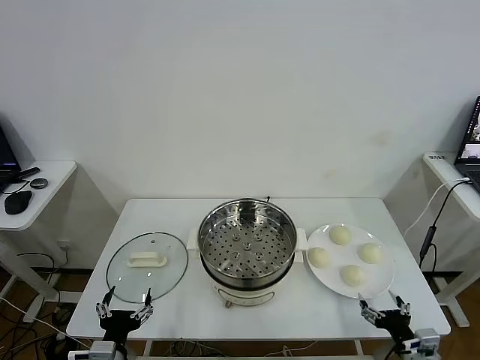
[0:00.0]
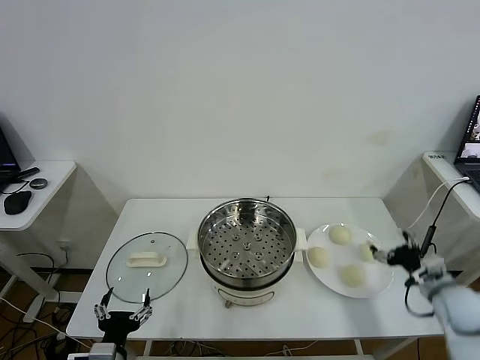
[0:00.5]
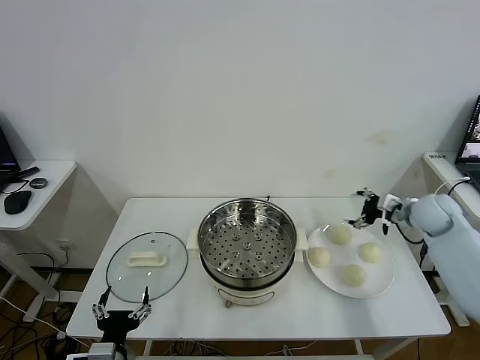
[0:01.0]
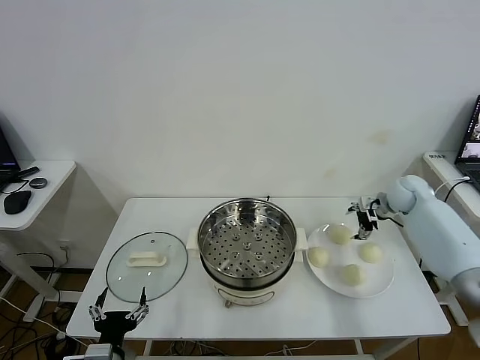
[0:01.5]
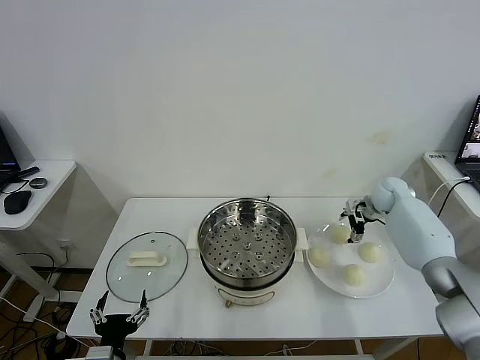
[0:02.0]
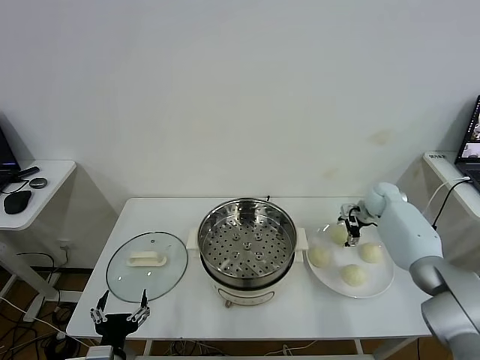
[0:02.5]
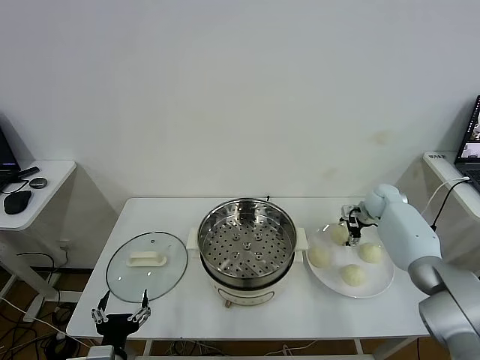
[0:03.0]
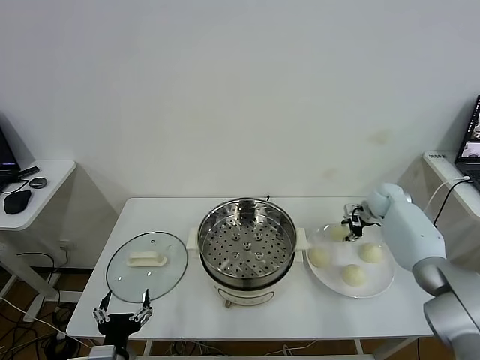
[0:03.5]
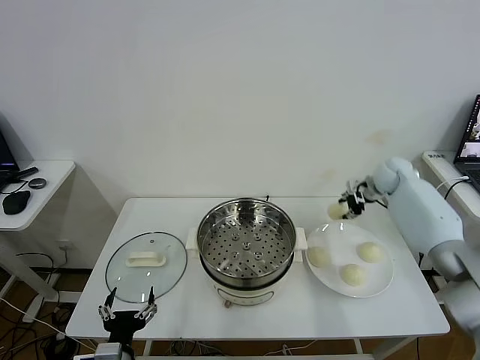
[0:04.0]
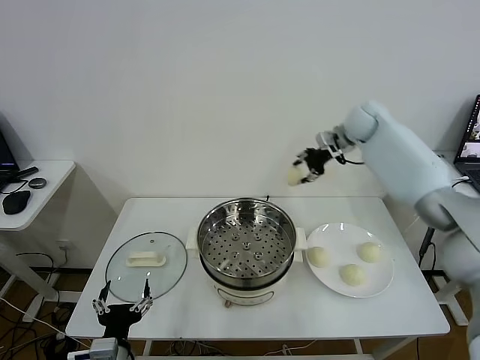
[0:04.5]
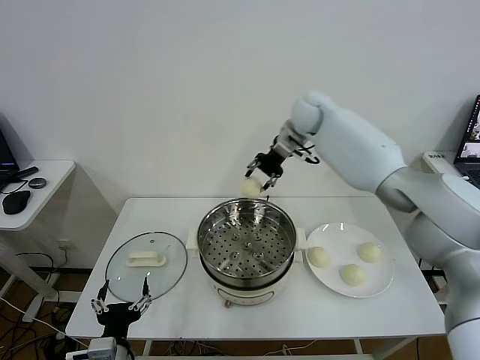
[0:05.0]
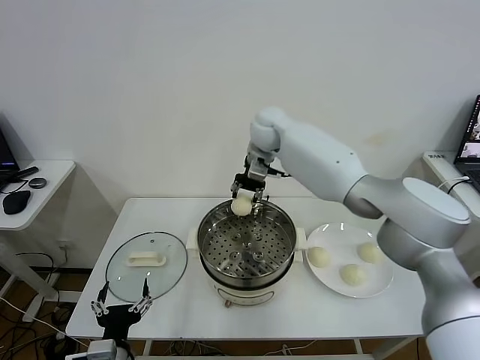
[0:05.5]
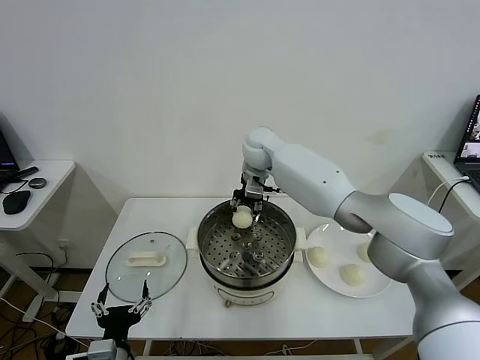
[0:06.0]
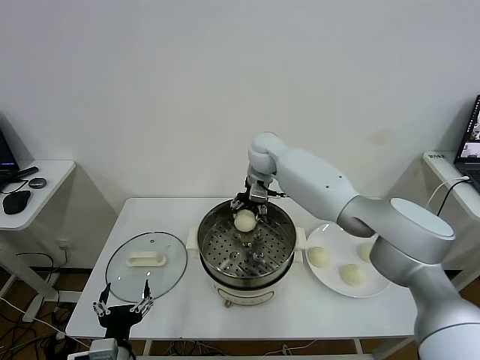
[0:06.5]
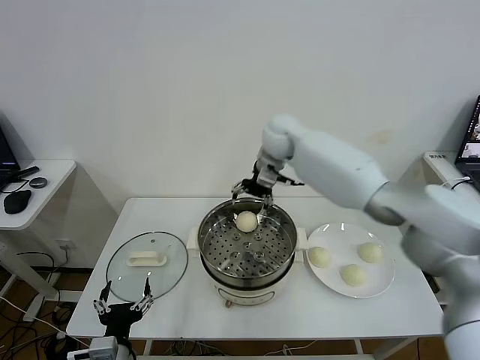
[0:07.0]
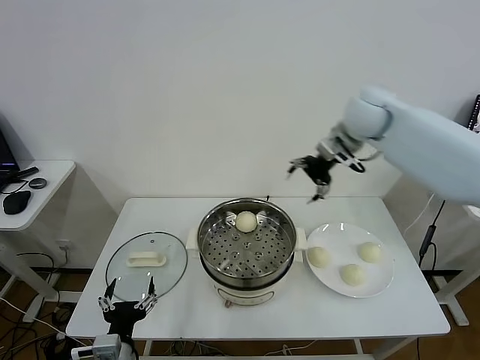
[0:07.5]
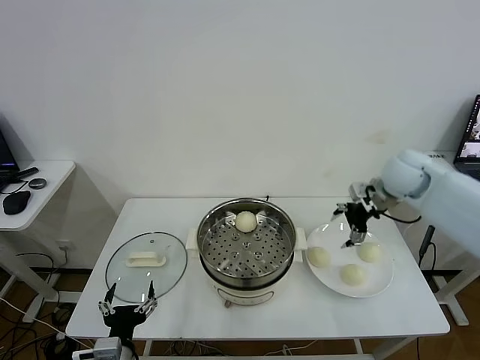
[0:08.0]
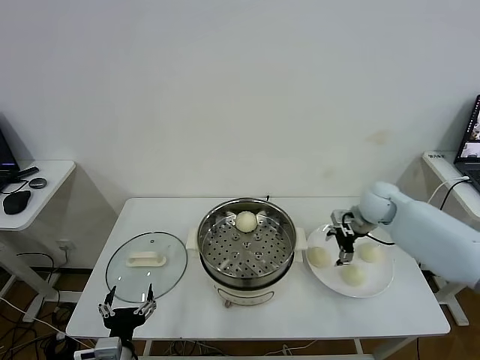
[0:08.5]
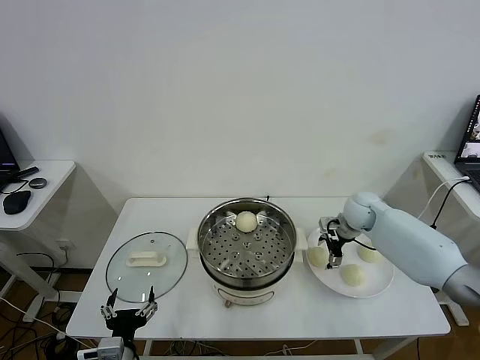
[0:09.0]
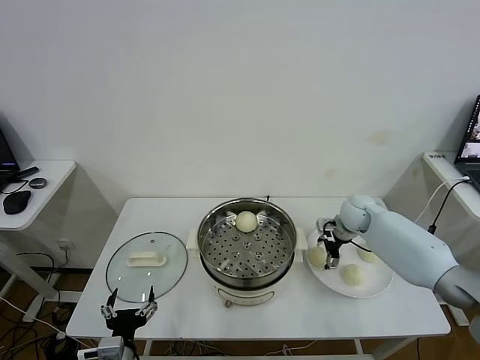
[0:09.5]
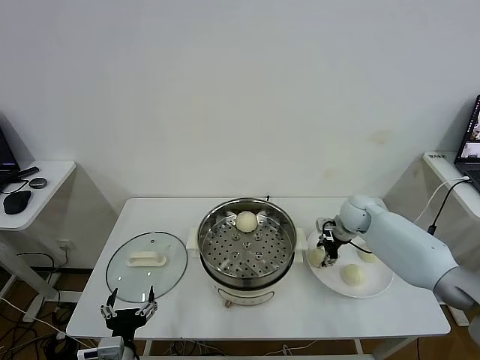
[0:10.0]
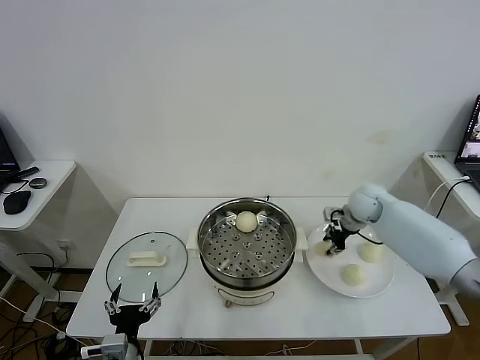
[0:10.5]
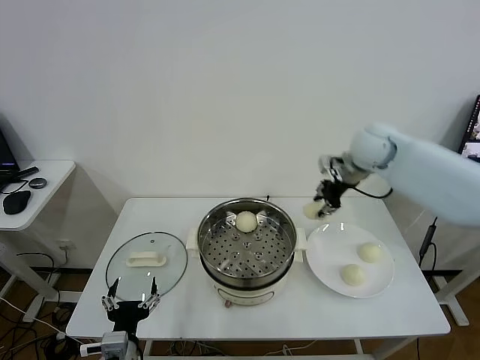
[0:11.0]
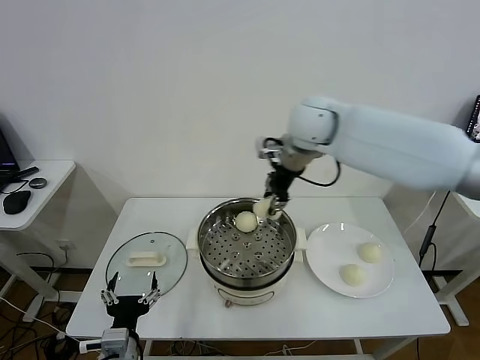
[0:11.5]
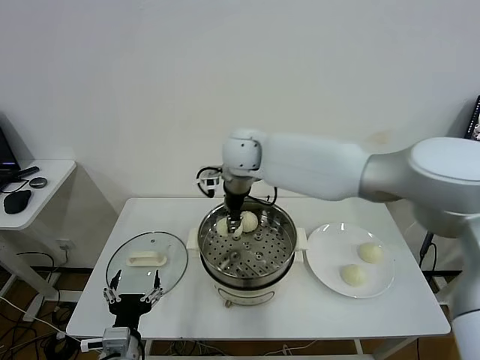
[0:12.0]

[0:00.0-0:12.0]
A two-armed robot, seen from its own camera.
Task of the whole recording: take steamed baozi put them in steamer.
Step, 0.0 to 3.0 s: Grasp the baozi in the plate with right gripper.
Step, 3.5 to 6.5 s: Place the baozi on the steamer with right gripper.
Step, 7.0 to 10.0 s: Grasp the baozi in the plate with right gripper.
2.0 to 4.0 s: The right gripper moves upward, approximately 5 cm, and closes.
4.0 to 6.0 s: The right gripper goes roughly 35 cm to the left.
6.0 to 8.0 s: The right gripper moves to the right, some 30 cm, and opens its fingers.
8.0 to 10.0 s: The right gripper travels downward by roughly 15 cm, and closes up.
10.0 to 12.0 s: The right gripper is displaced to the left and upward by some 35 cm.

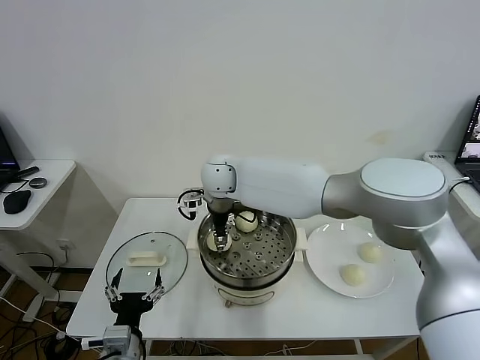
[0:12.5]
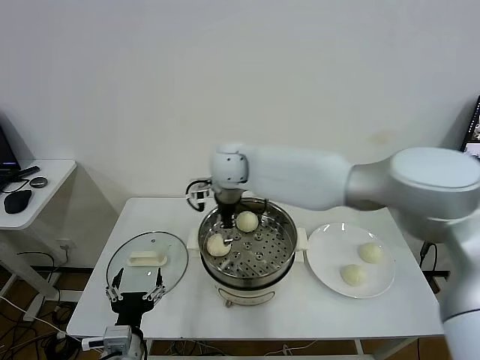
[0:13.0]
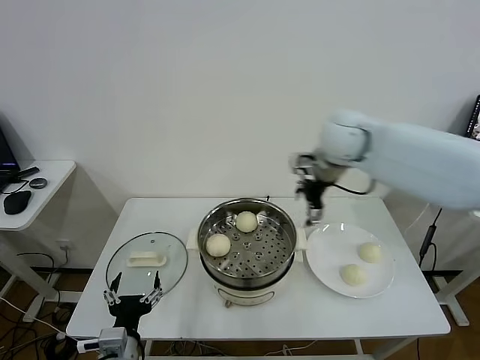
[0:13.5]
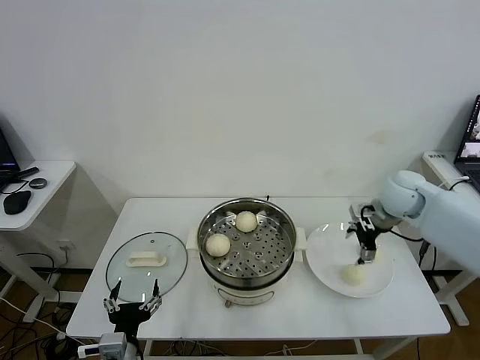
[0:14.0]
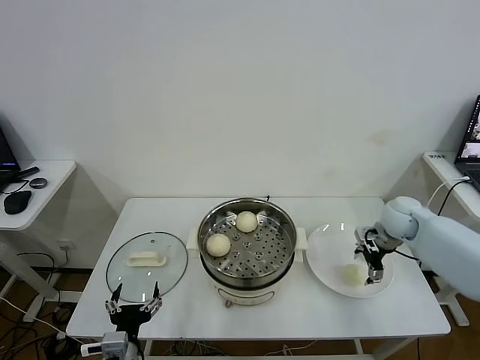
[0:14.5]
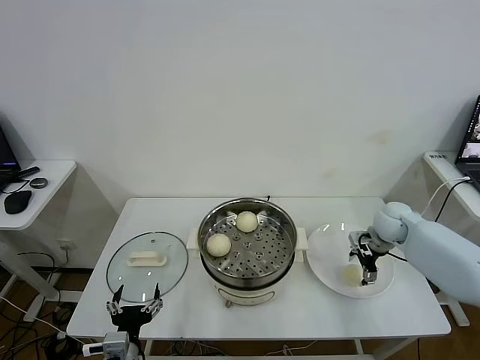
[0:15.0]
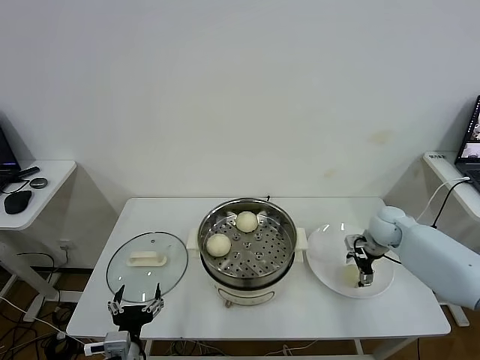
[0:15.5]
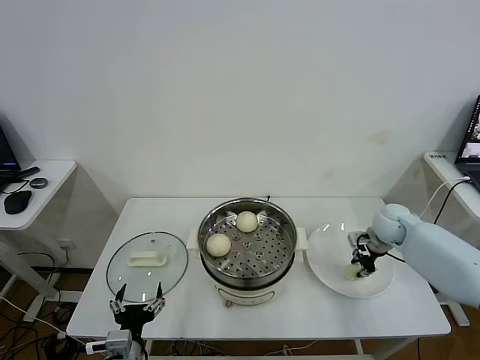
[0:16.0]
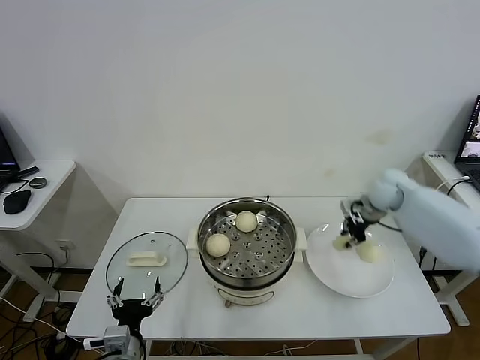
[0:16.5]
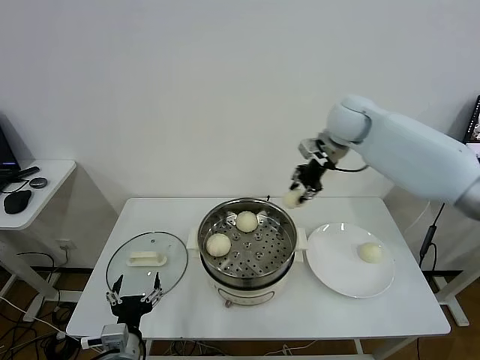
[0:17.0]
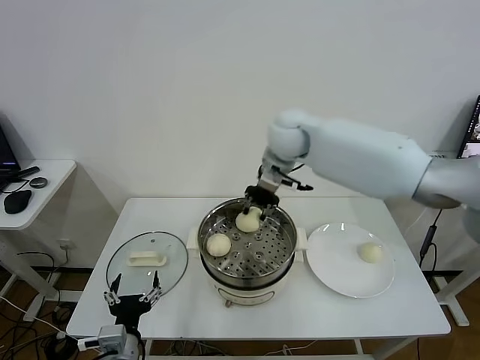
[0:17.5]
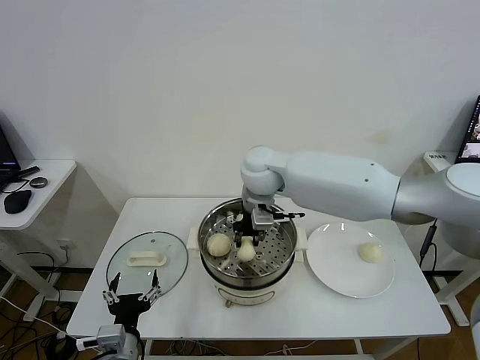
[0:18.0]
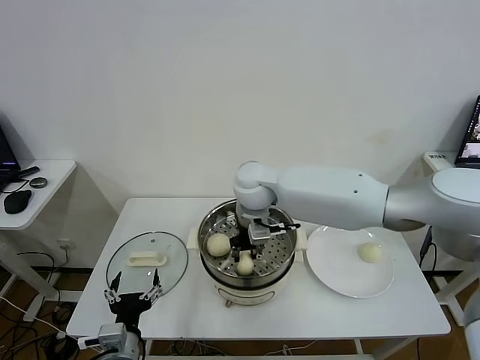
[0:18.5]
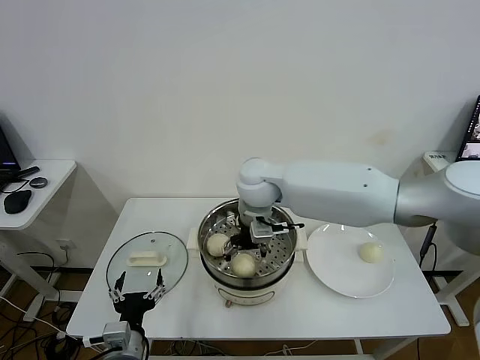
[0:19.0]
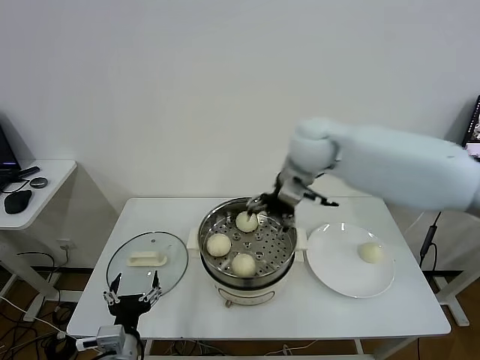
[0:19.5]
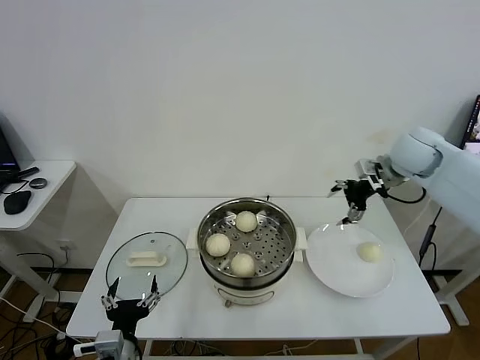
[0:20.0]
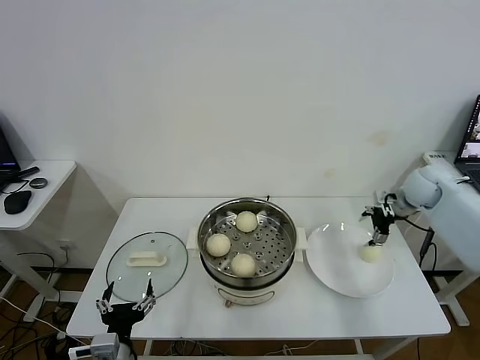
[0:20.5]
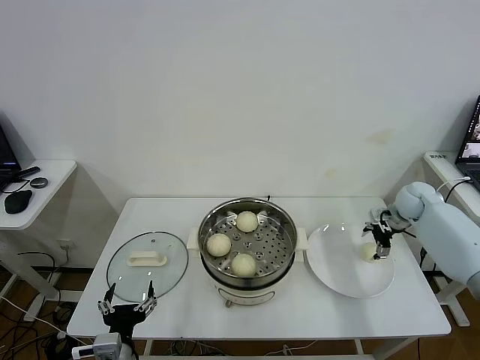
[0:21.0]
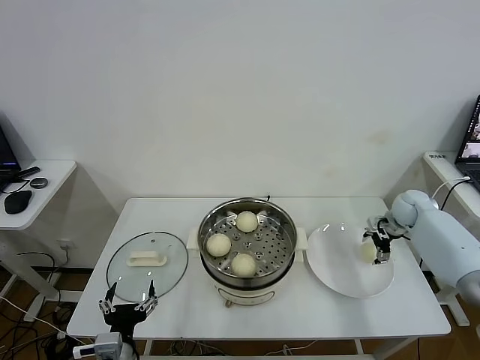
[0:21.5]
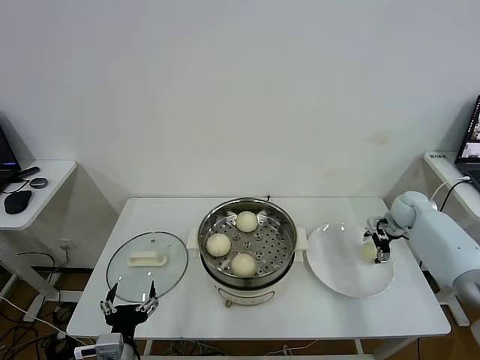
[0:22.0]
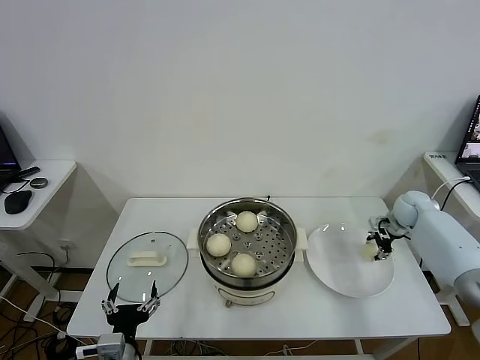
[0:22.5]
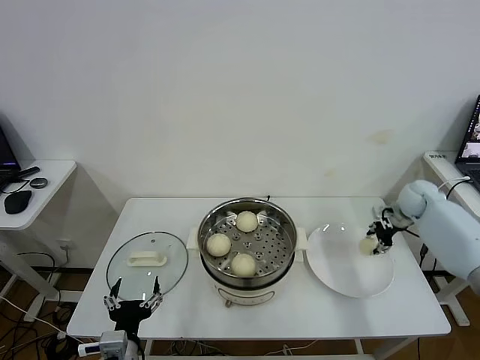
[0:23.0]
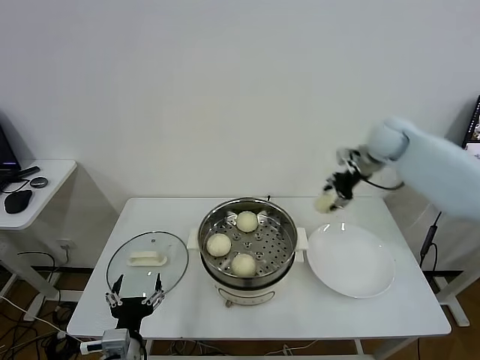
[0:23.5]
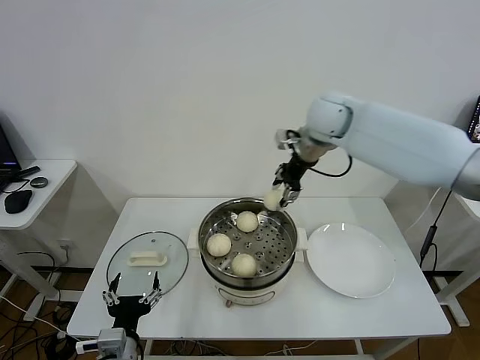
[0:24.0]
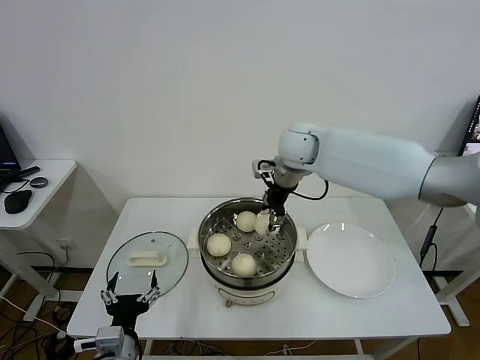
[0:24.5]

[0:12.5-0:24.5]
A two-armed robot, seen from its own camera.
Task of the whole recording: take steamed baozi put them in steamer.
Step, 13.0 to 15.5 s: Grasp the baozi in the plate with right gripper.
Step, 16.0 to 19.0 s: Place the baozi on the steamer with right gripper.
Step, 19.5 to 22.5 s: Grasp the baozi in the plate with right gripper.
12.5 to 14.5 s: The right gripper goes about 40 cm to the right, and opens up.
14.5 to 16.5 s: The right gripper goes roughly 10 cm upward and forward, and closes its fingers.
16.5 to 18.5 s: The right gripper travels to the left by approximately 30 cm.
18.5 to 20.5 s: The right gripper shifts roughly 40 cm to the right, and opens.
20.5 to 22.5 s: The right gripper travels downward by about 10 cm, and closes.
22.5 to 24.5 s: The right gripper shifts approximately 40 cm to the left and upward.

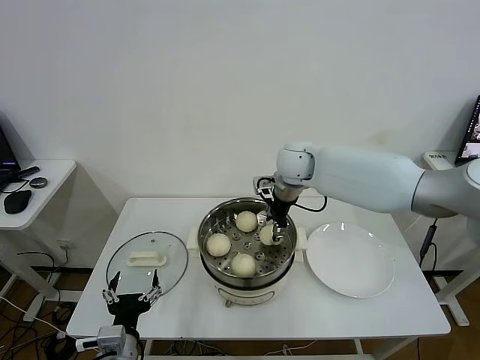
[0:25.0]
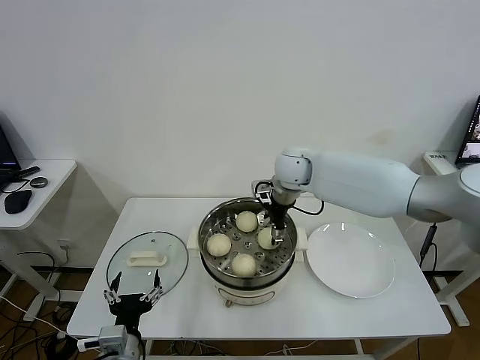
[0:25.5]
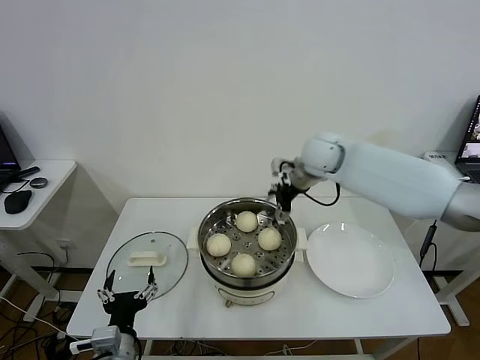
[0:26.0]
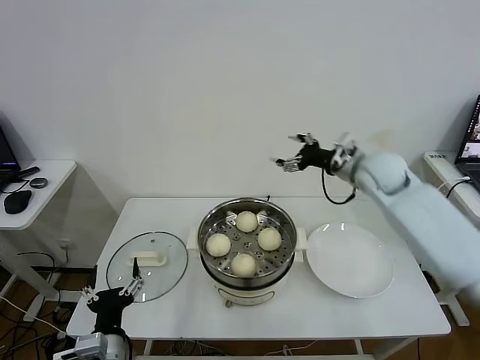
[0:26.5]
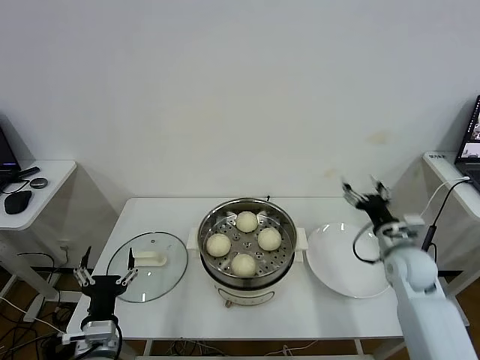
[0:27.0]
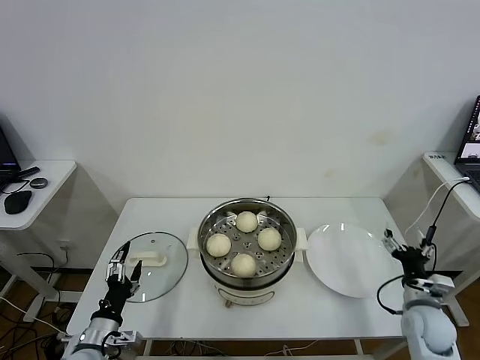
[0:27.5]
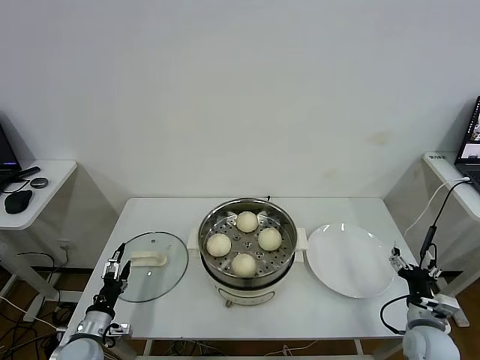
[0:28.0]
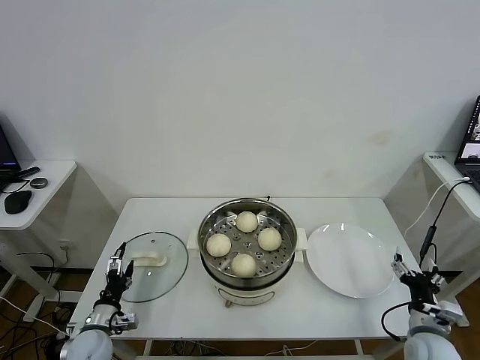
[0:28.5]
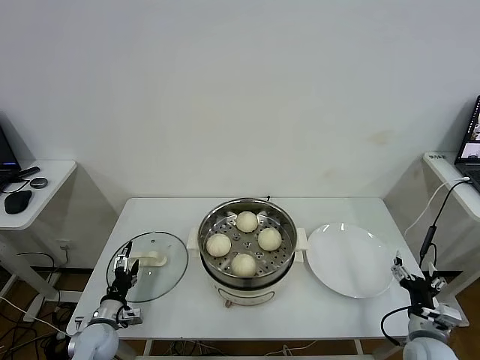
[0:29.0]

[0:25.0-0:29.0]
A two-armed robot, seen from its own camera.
Task of the whole recording: take steamed baozi put them in steamer.
25.0 to 27.0 s: The right gripper travels to the right, backward and downward by some 35 cm, and opens its fingers.
27.0 to 29.0 s: The right gripper travels backward and downward by approximately 20 cm. Meanwhile the left gripper shifts about 20 cm downward, forward and to the left.
